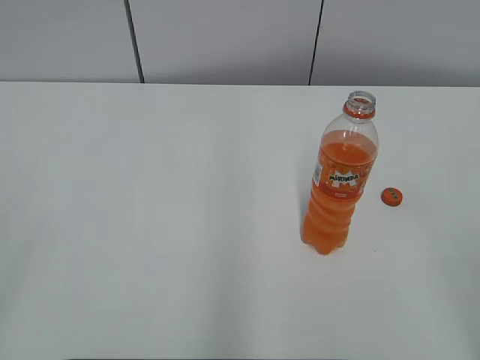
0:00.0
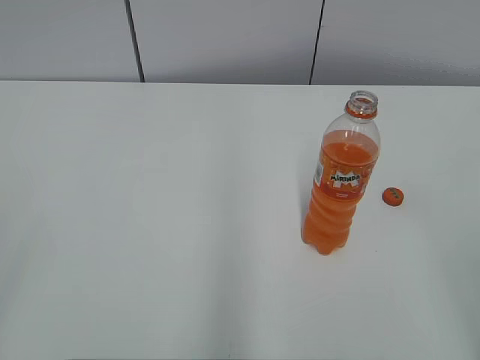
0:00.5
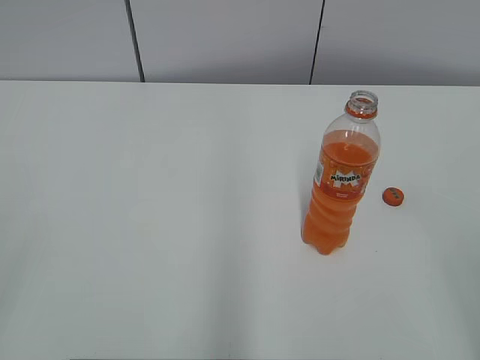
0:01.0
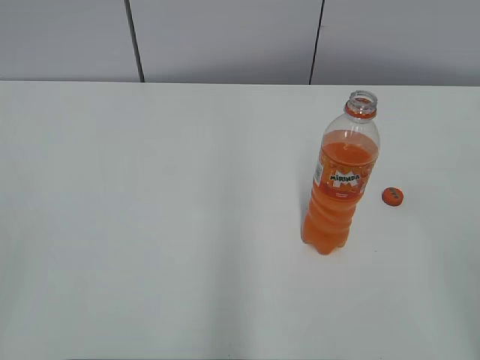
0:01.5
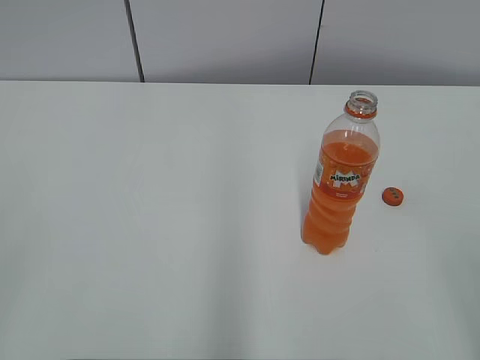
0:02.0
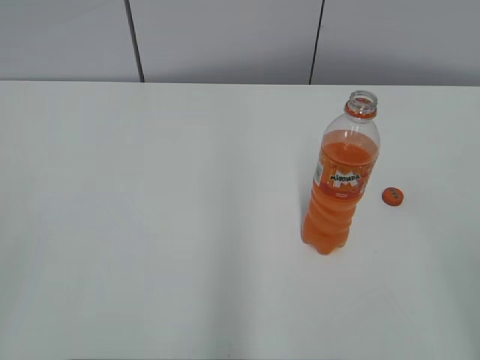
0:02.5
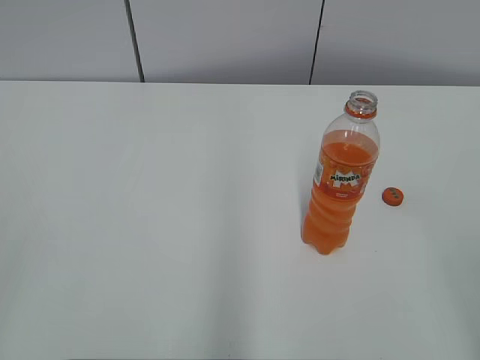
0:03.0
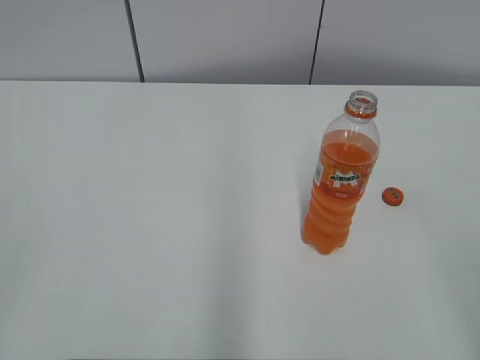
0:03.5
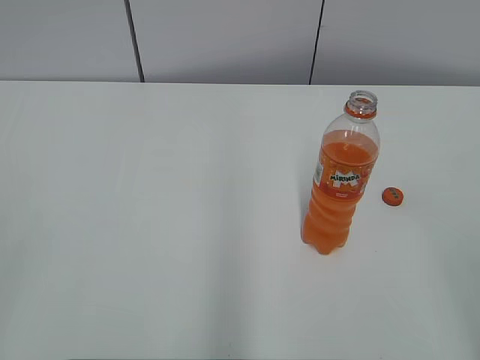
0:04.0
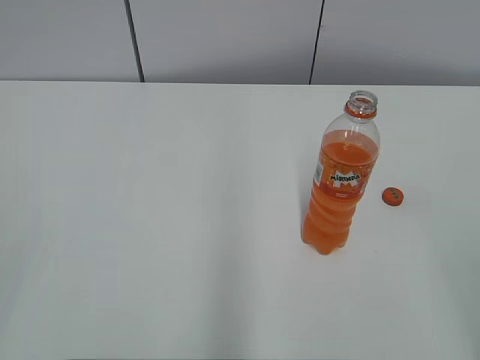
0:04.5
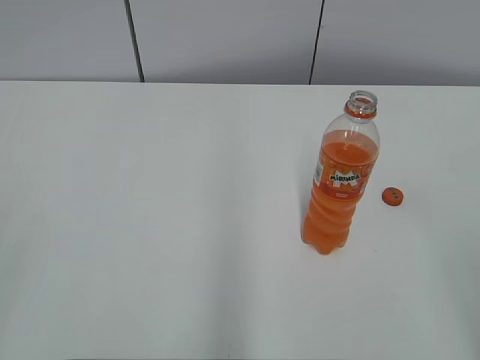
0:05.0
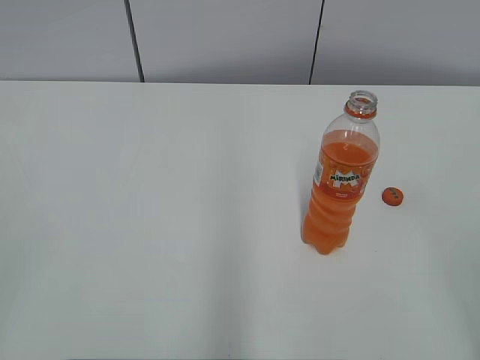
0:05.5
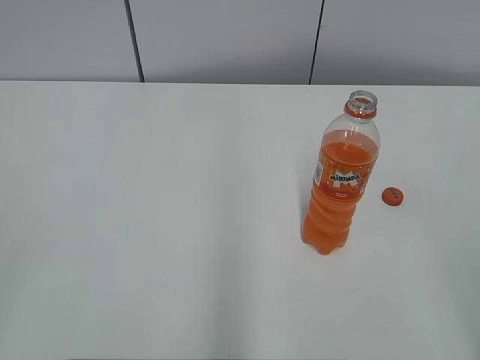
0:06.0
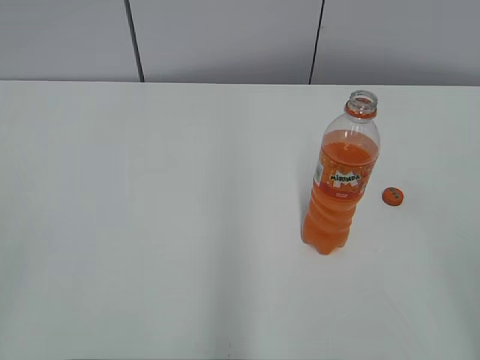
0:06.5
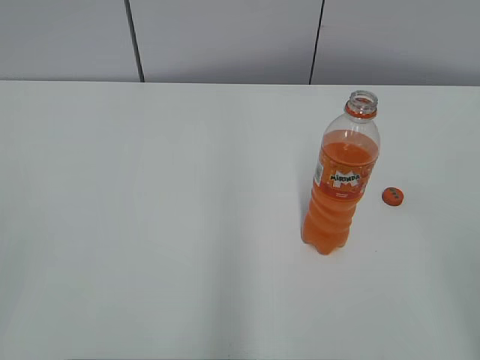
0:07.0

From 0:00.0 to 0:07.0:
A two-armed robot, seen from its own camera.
From 0:02.0 to 0:07.0: The two grippers keep their place.

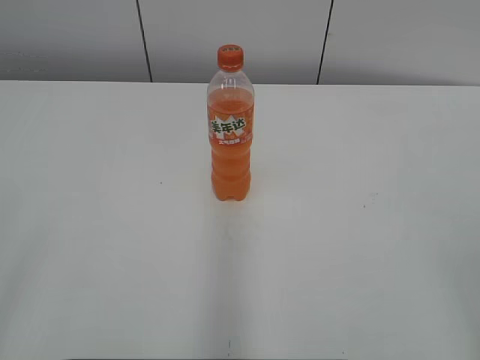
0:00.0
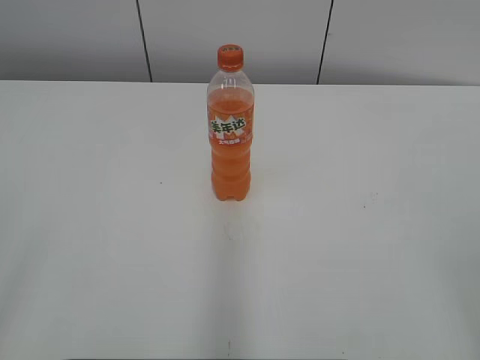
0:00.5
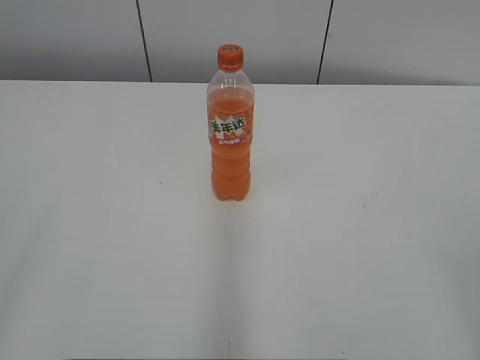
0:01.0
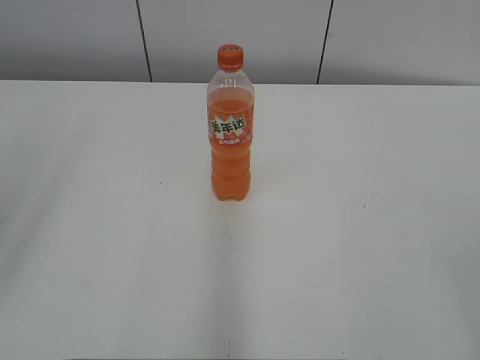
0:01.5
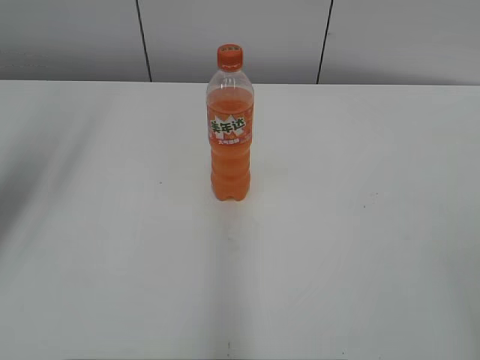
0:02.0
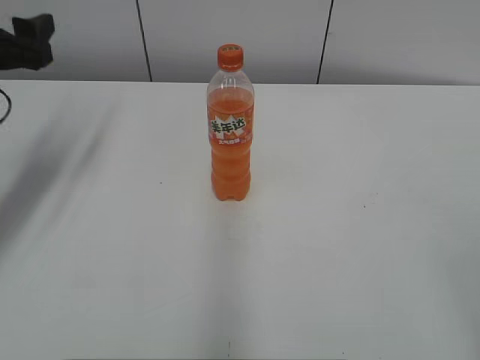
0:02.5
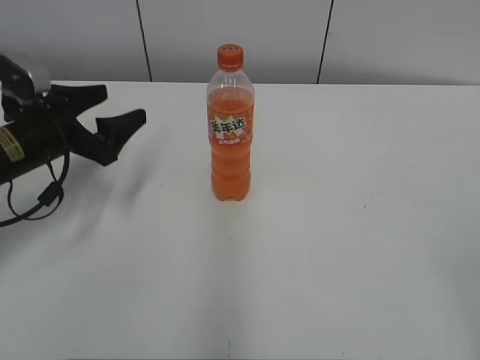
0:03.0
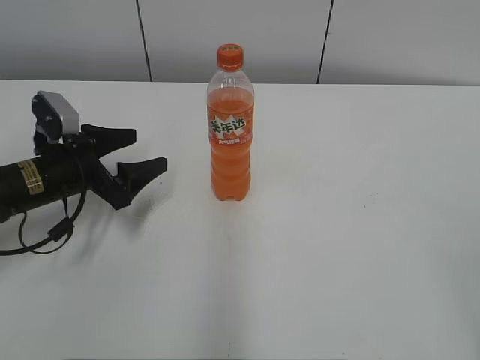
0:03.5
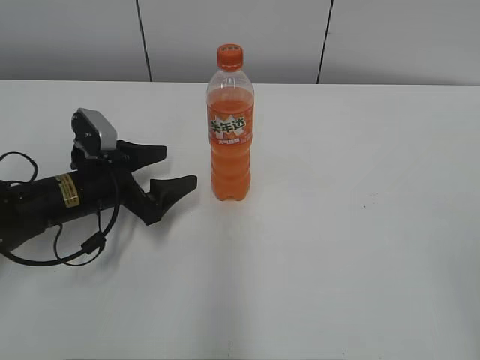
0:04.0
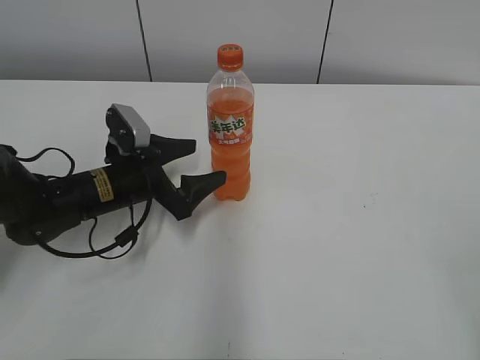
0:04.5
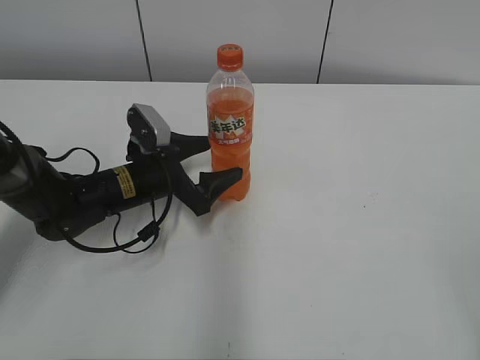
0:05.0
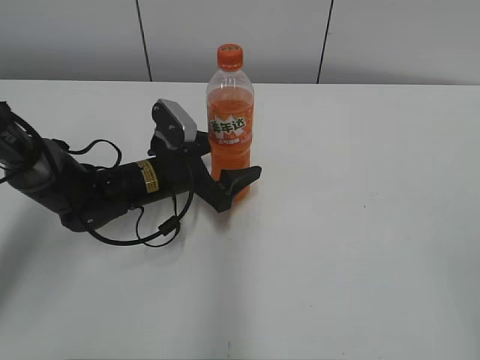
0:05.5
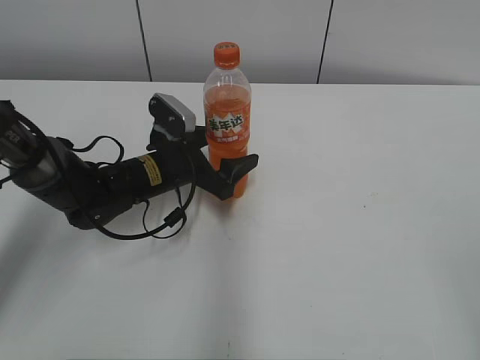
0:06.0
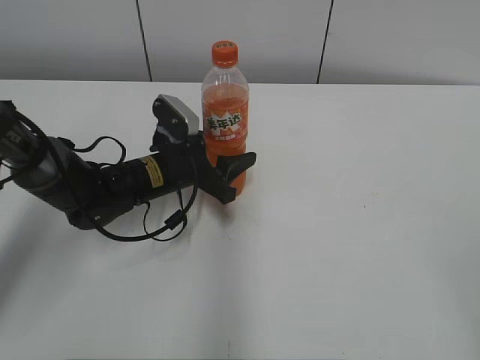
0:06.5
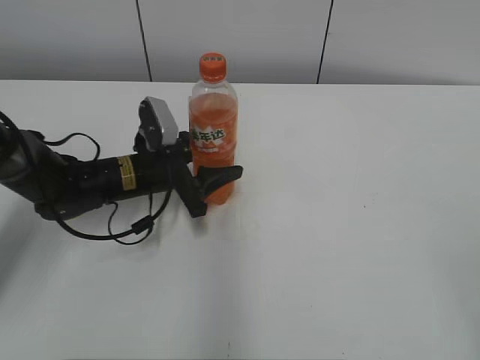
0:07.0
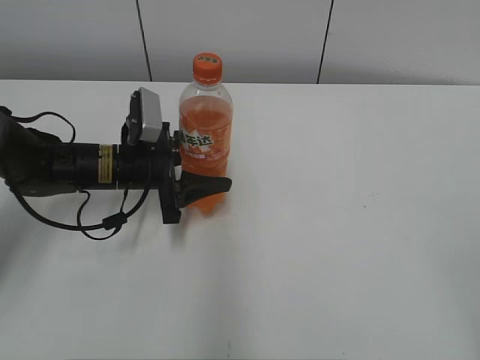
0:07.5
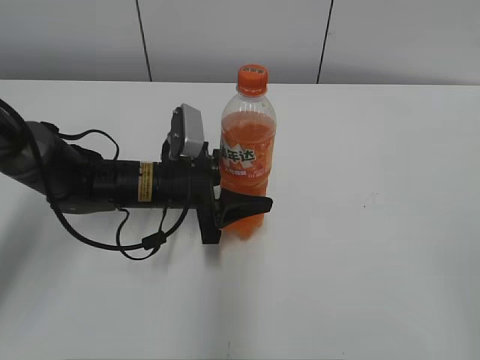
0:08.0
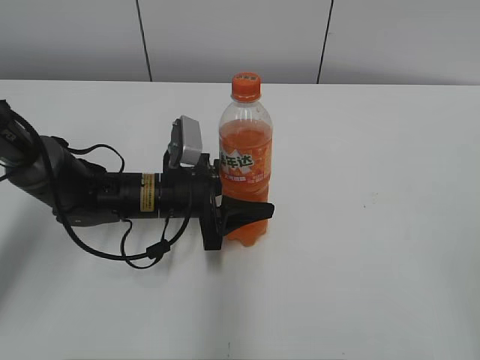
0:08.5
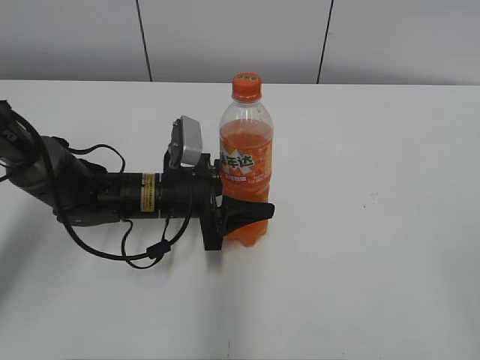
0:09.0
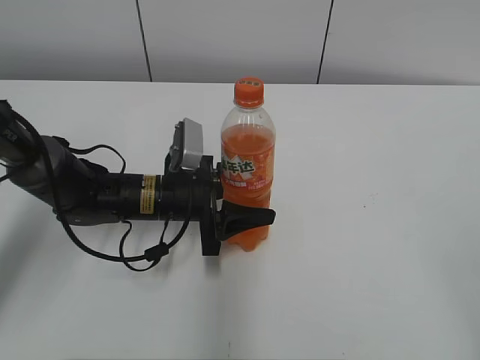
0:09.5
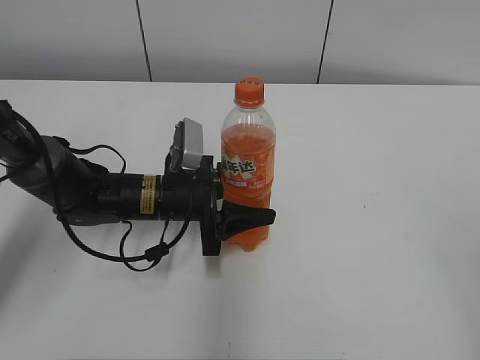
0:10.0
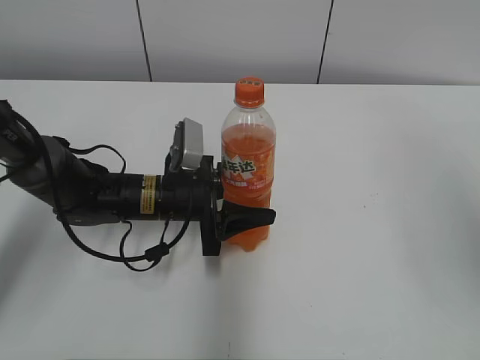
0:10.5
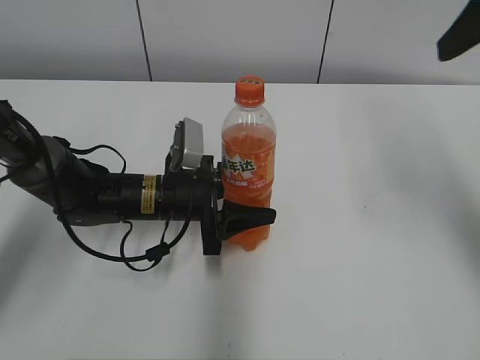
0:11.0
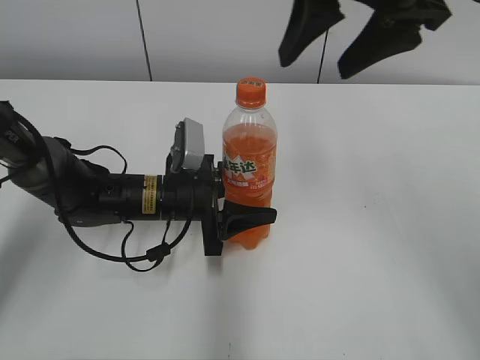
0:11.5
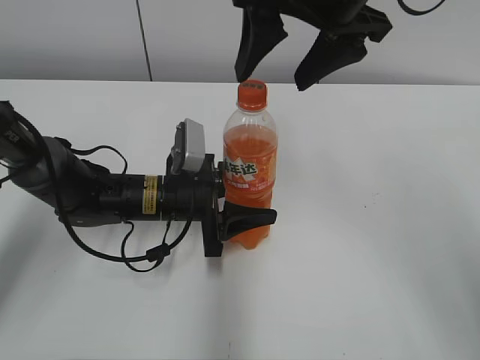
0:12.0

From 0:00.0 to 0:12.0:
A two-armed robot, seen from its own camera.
Step, from 0:00.0 to 0:06.5: Grab the Mirinda with the left hand.
Step, from 0:07.0 to 0:10.0: Move the Mirinda from left to right.
From 0:02.0 to 0:04.0: The left gripper travels downward by some 25 cm.
From 0:04.0 to 0:06.0: The left gripper is displaced to the right by some 10 cm.
From 0:06.0 to 0:08.0: The left gripper closes its fingers.
From 0:08.0 to 0:10.0: The grippers make only small movements.
From 0:10.0 to 0:12.0: The right gripper goes approximately 40 cm forward and to the left.

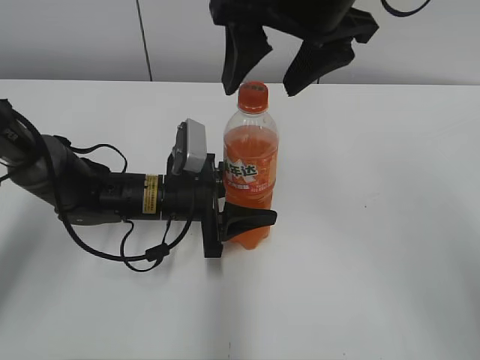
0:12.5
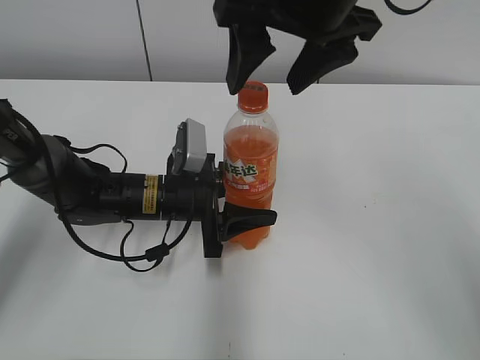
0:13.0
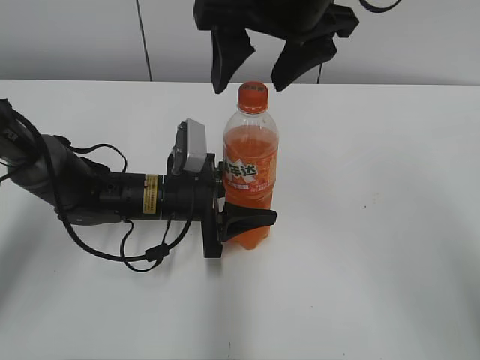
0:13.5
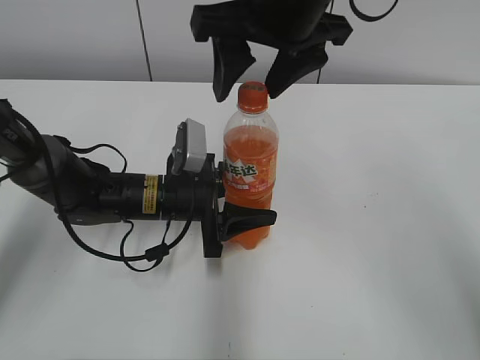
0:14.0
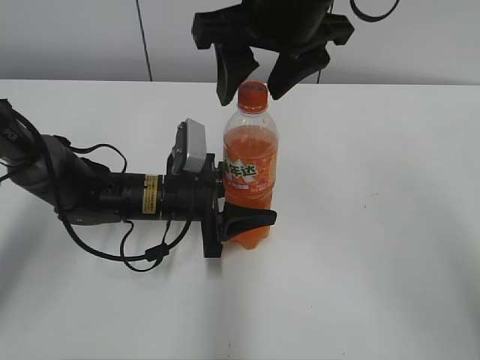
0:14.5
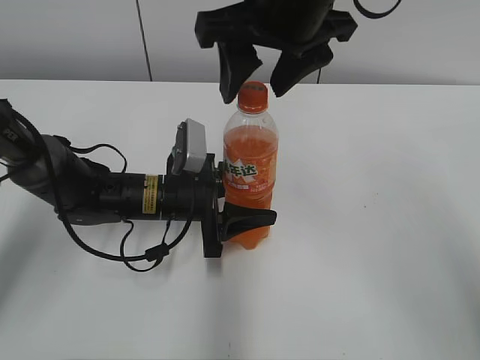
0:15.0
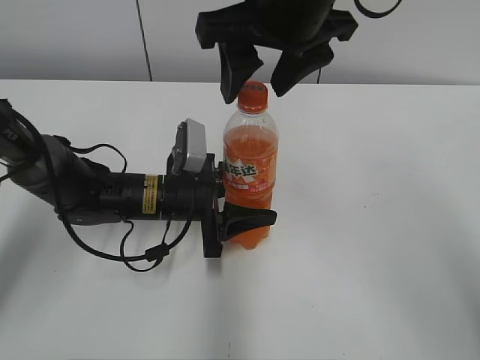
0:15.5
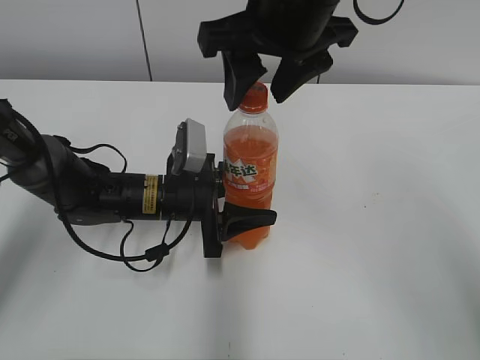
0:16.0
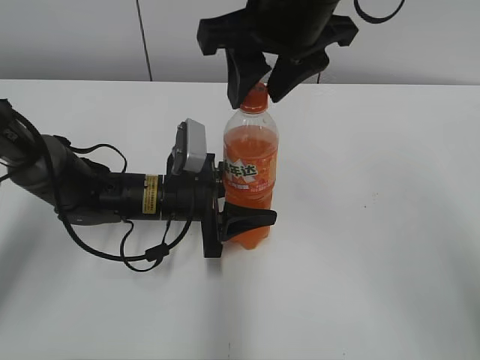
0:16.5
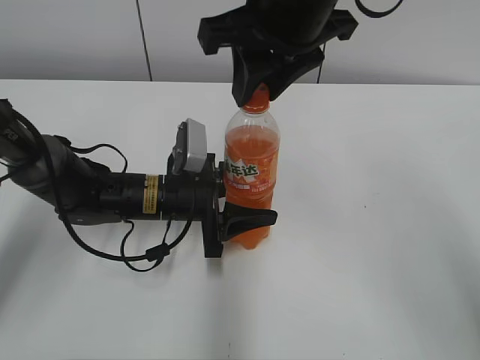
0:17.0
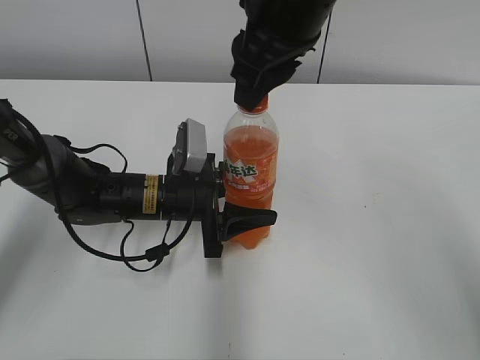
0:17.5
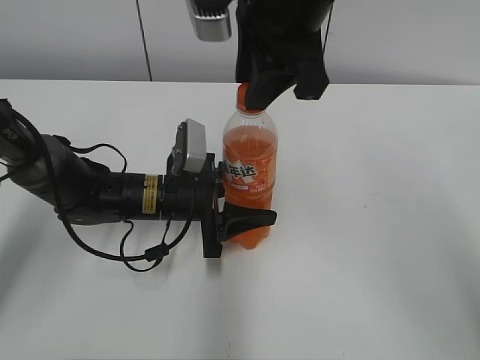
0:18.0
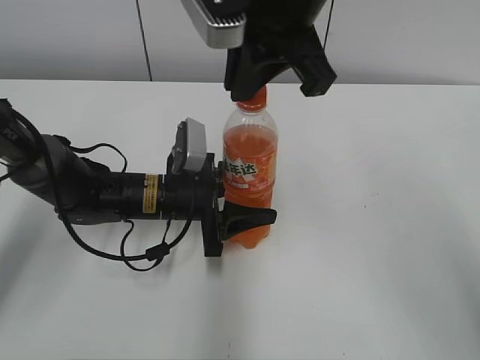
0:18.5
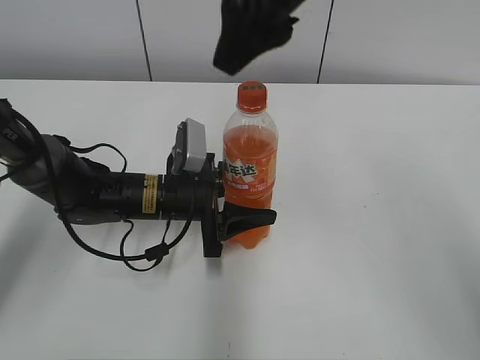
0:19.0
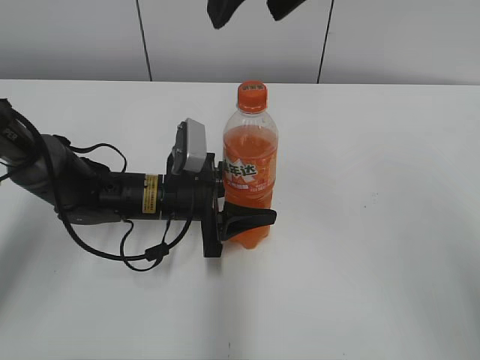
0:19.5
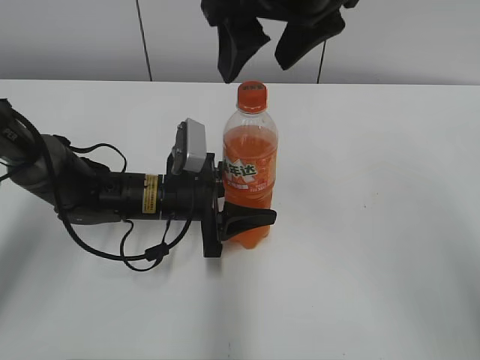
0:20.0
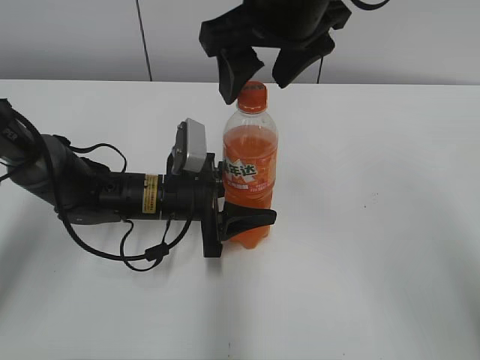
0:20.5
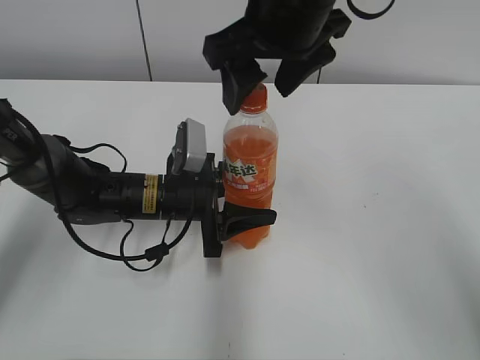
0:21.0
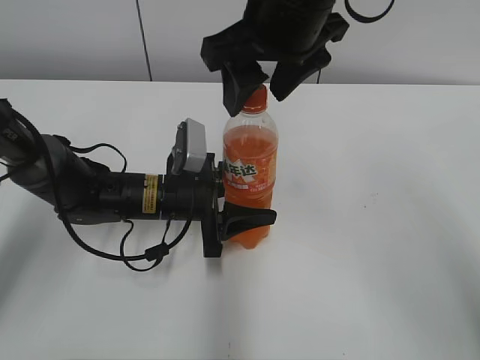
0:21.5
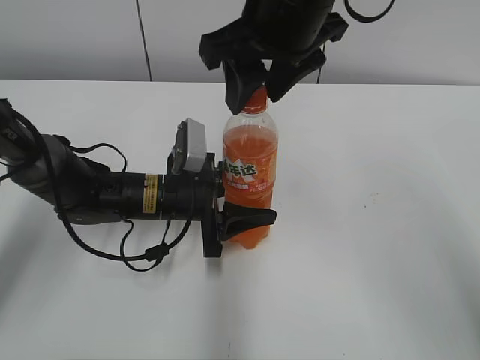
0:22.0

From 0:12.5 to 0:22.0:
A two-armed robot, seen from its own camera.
From 0:12.5 to 0:14.5: The grippers move only a little.
From 0:14.5 to 0:16.5: Both grippers stay put.
From 0:16.5 to 0:18.0: The right gripper closes its fingers.
From 0:18.0 to 0:20.0: The right gripper opens up.
From 0:20.0 to 0:22.0: The right gripper closes.
